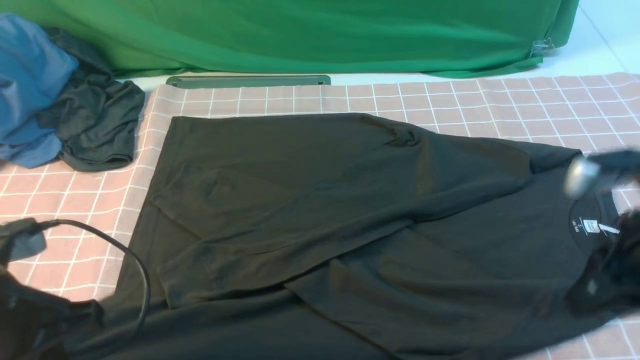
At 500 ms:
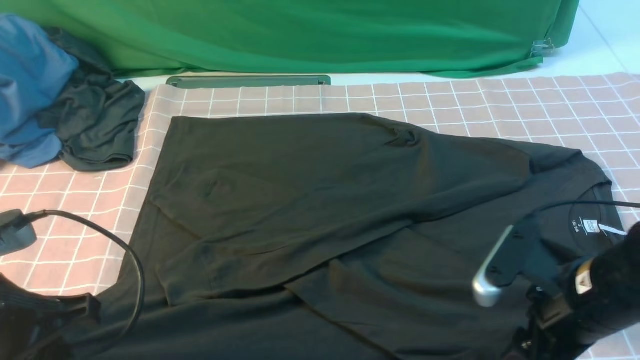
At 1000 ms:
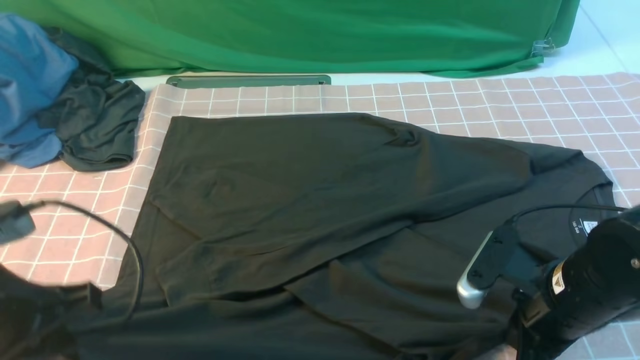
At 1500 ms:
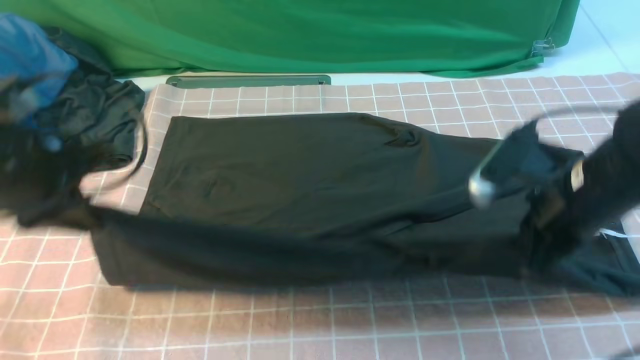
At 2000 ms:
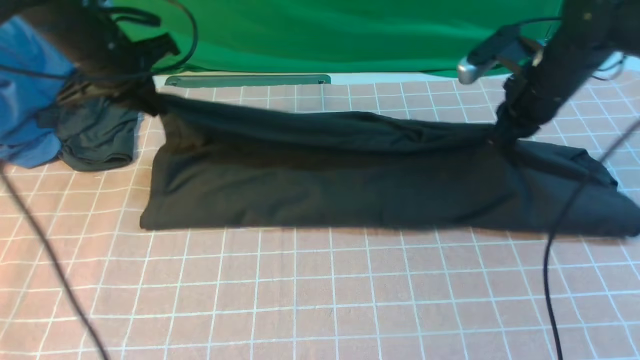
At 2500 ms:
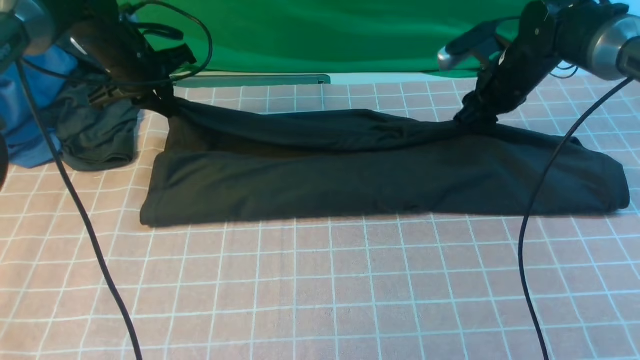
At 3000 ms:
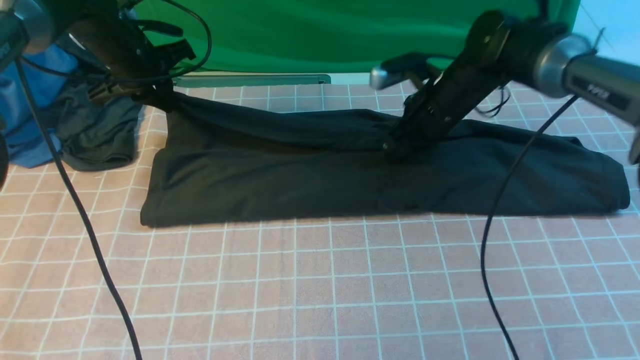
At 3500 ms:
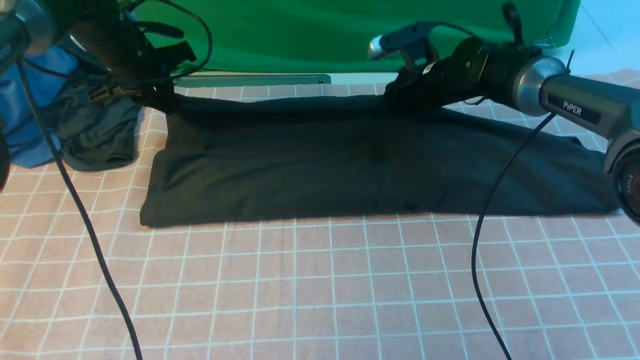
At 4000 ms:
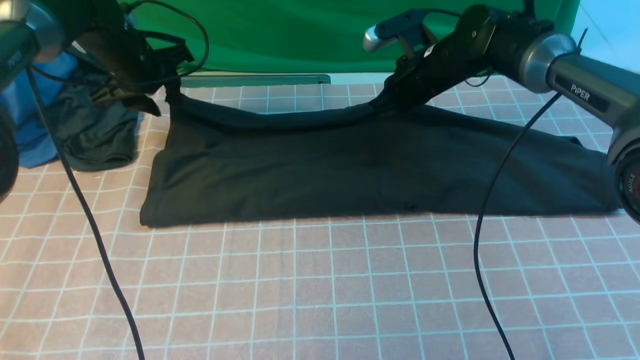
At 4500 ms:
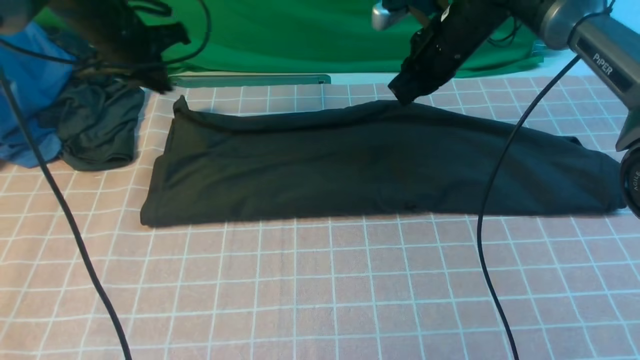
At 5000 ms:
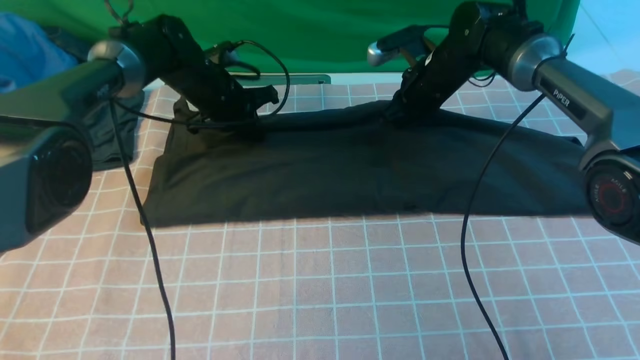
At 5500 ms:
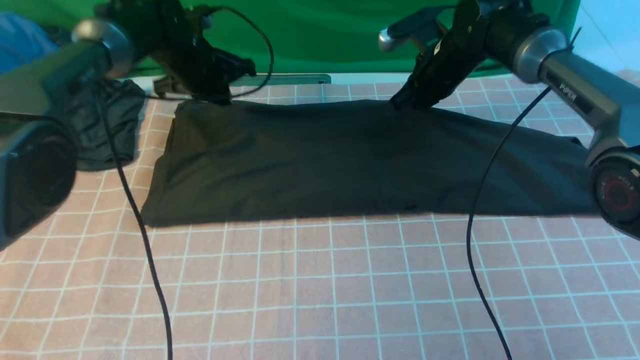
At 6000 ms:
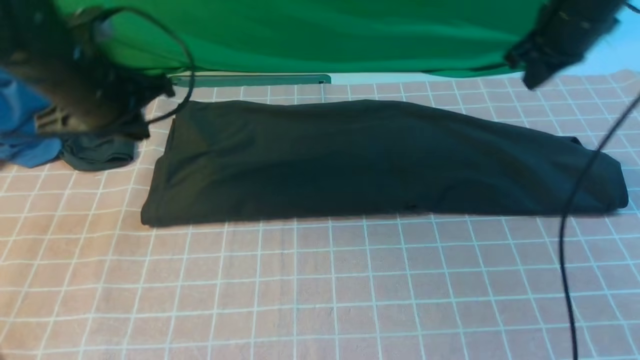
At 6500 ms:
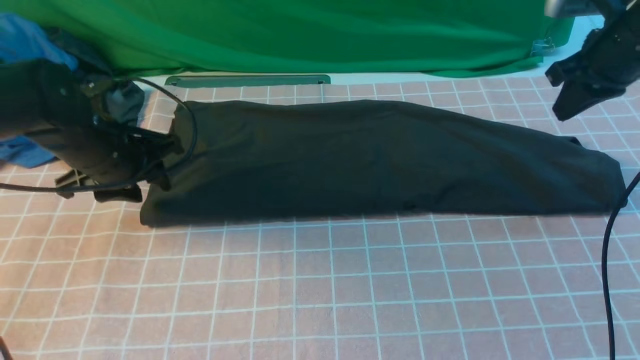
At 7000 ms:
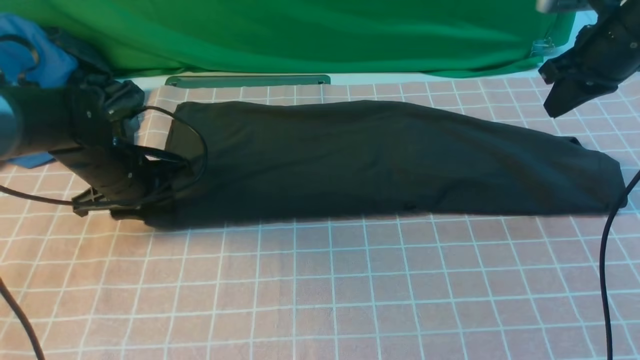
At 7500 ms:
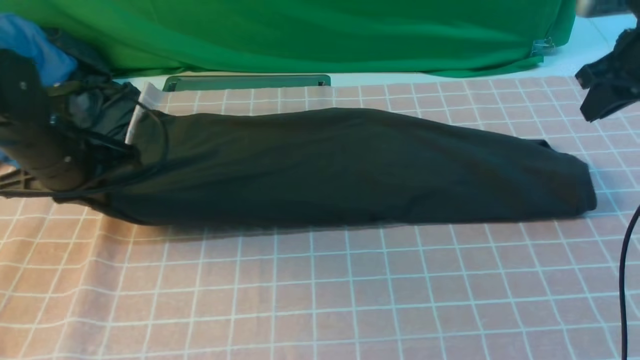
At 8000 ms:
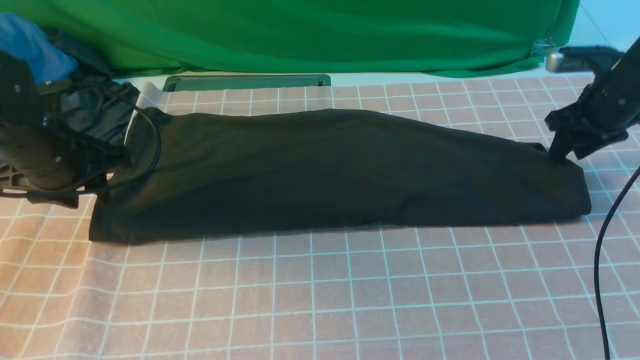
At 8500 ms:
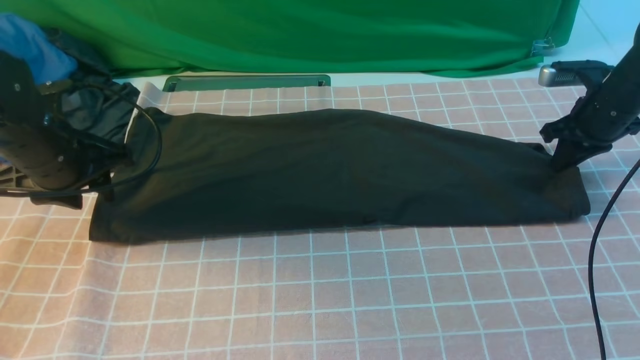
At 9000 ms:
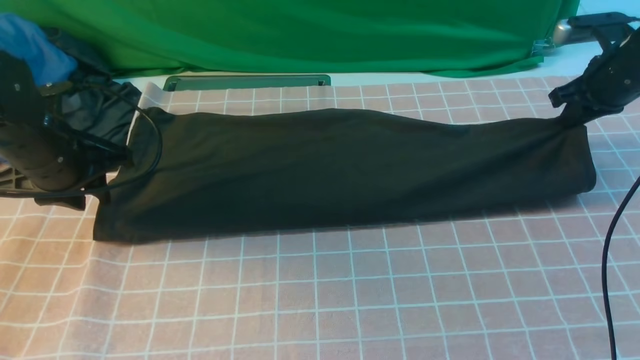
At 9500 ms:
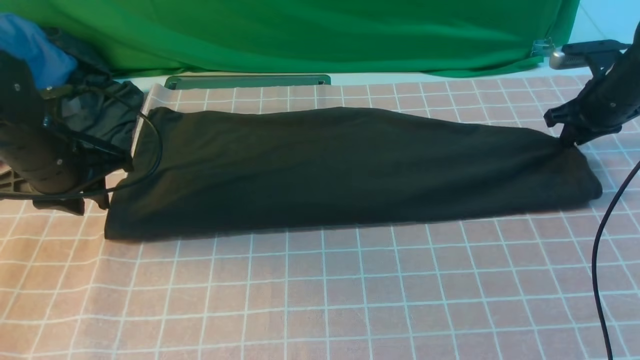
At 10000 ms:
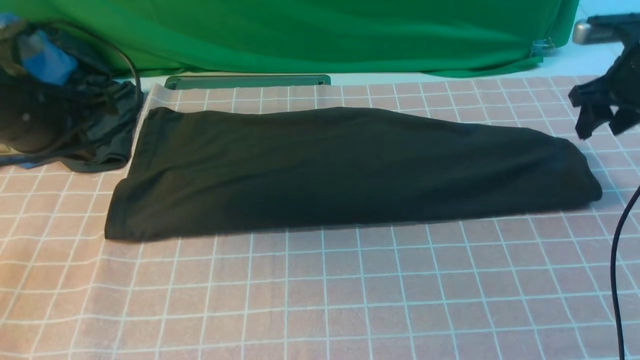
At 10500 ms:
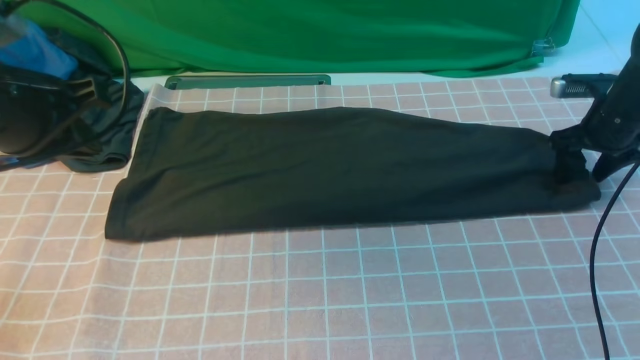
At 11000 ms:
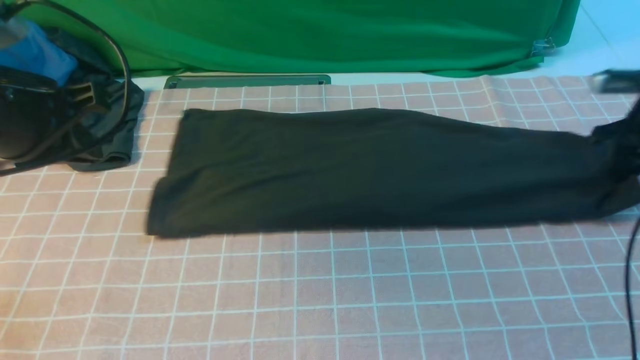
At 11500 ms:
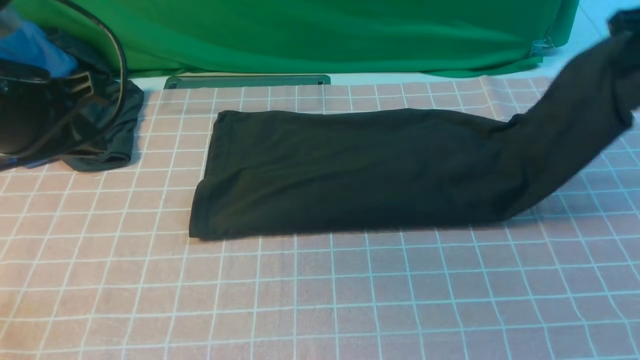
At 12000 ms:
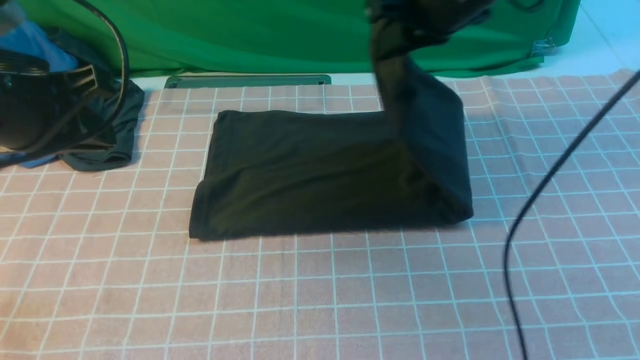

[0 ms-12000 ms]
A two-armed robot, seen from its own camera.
Step, 1500 ms to 4000 ms: use both arms to drag the lower edge of the fabric forward and fold it over the upper edge.
Step, 4500 ms to 10500 ms: use the right arm to clamp the right edge of the fabric.
0 ms to 2000 ms: Both grippers travel together forward, approximately 25 cm. The right gripper closes.
2000 ms to 4000 ms: The left gripper goes approximately 5 cm forward, and opens its fingers. The right gripper moves to the left and forward, some 10 cm.
4000 ms to 6000 ms: The left gripper is displaced backward by roughly 10 cm, and closes up; the right gripper moves to the right and upward, approximately 15 cm.
6000 ms to 8000 ms: The left gripper is displaced downward and to the left by about 5 cm, and opens its fingers; the right gripper is displaced downward and to the right by some 10 cm, and opens its fingers.
8000 ms to 10000 ms: The left gripper heads upward, covering roughly 5 cm, and closes; the right gripper closes and opens again.
10000 ms to 12000 ms: The left gripper moves roughly 5 cm; the right gripper is displaced to the left and upward by approximately 30 cm, and closes its fingers.

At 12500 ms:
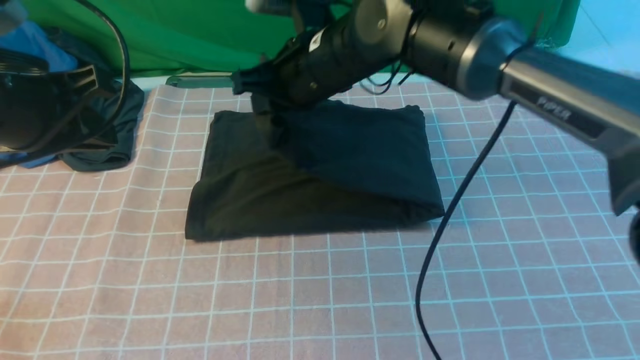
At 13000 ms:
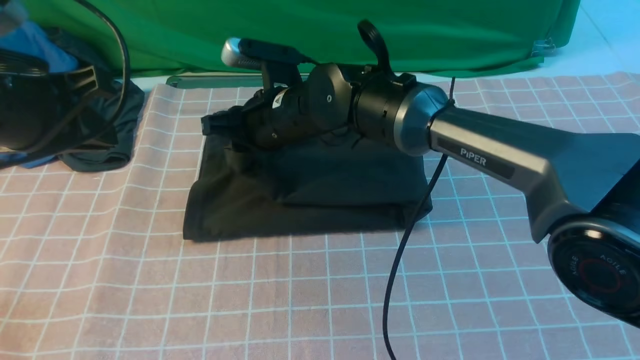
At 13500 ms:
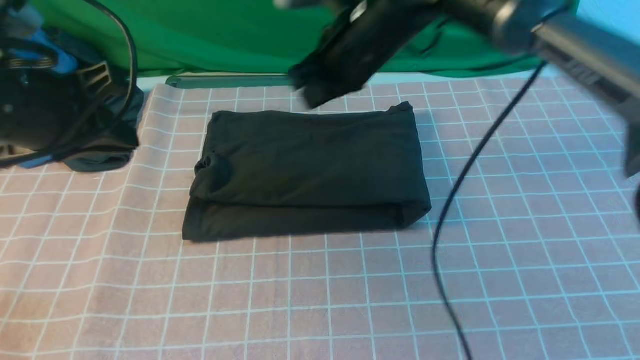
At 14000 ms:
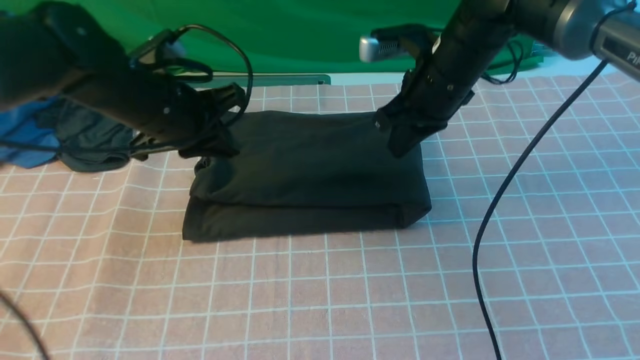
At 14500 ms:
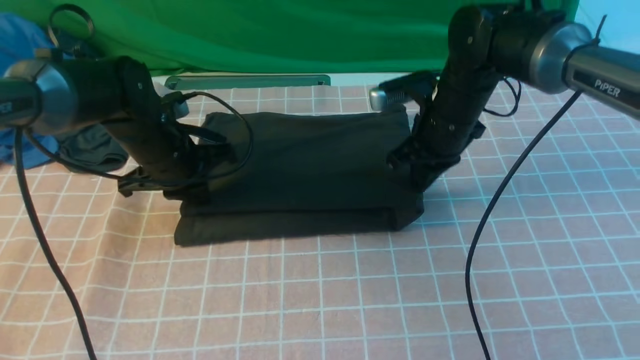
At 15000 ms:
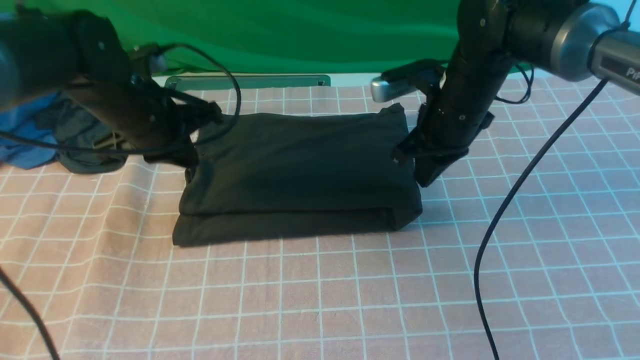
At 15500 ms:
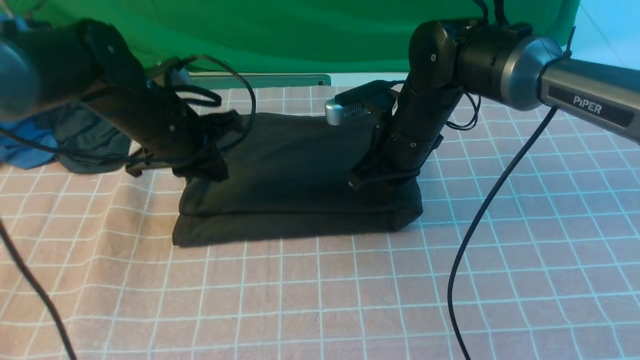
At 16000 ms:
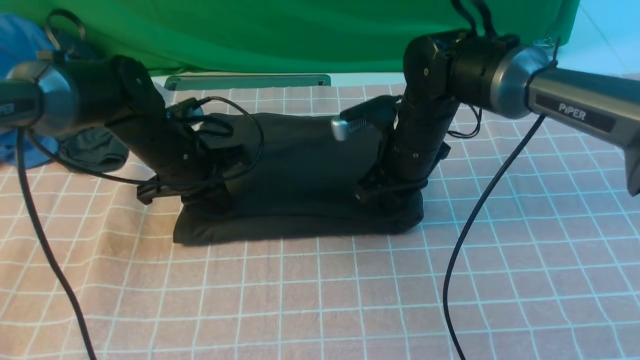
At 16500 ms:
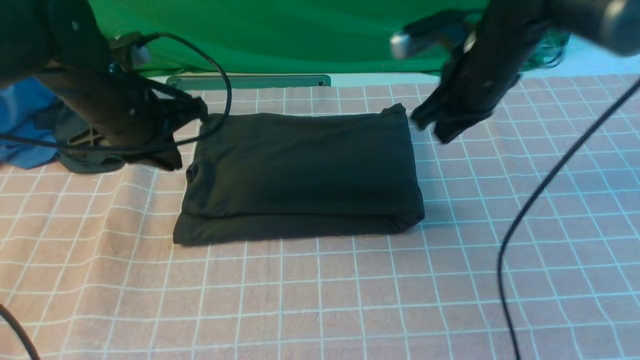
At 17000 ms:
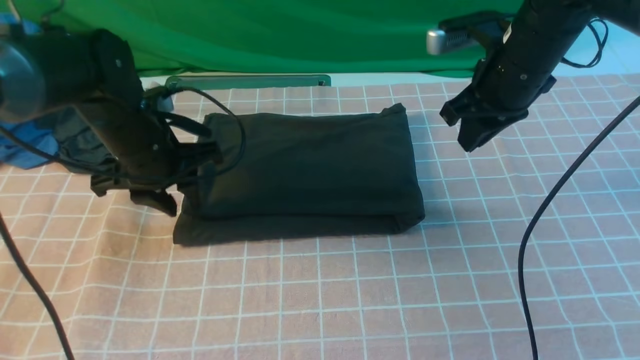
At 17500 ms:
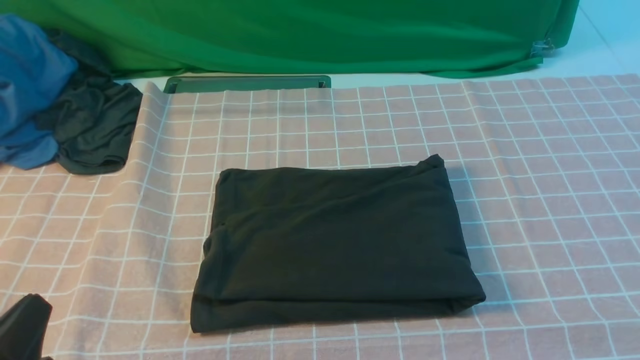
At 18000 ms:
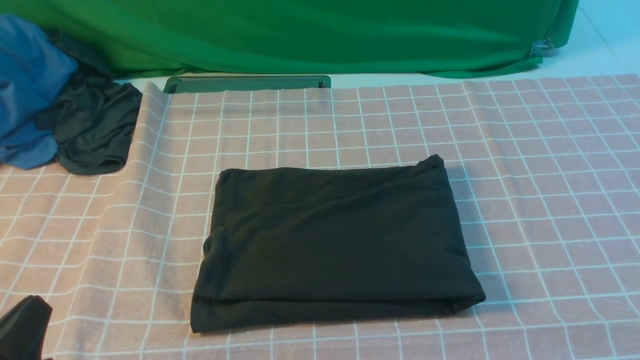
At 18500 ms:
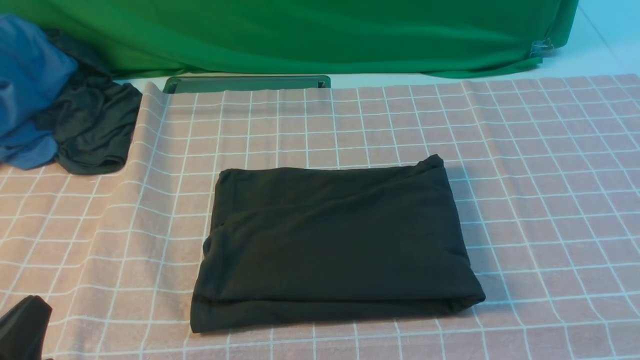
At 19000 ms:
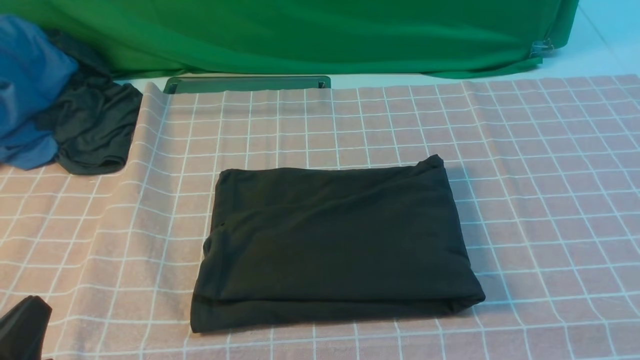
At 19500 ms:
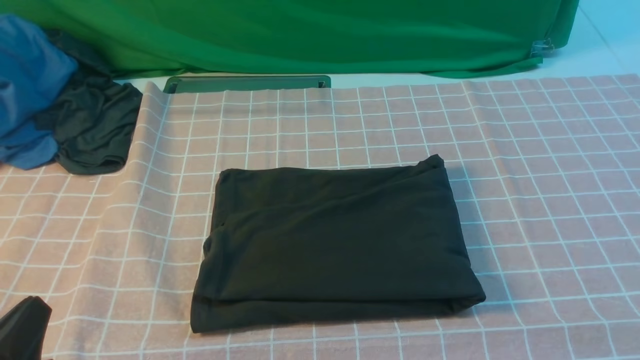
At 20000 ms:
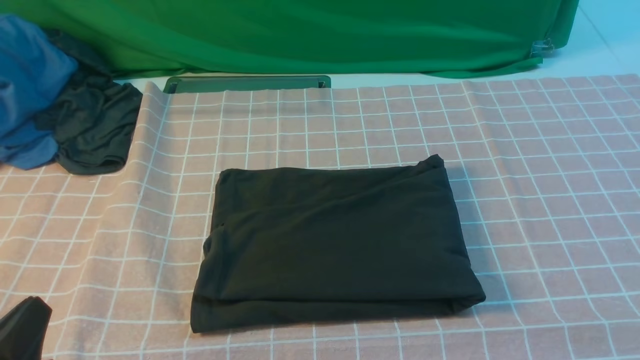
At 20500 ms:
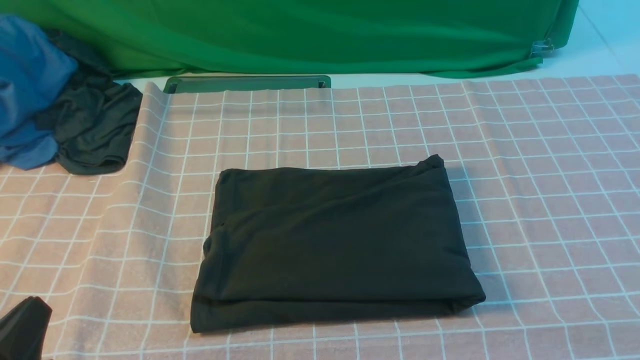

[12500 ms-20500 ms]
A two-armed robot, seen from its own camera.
12500 ms to 14500 ms: The right gripper is displaced to the right and downward by approximately 15 cm, and opens and closes again, while the left gripper shifts some 20 cm downward and forward.
14500 ms to 16500 ms: The right gripper shifts some 5 cm upward. Meanwhile the left gripper goes up and down, roughly 10 cm each way, reversing 2 times.
16500 ms to 18500 ms: Both grippers travel together backward, approximately 35 cm.
